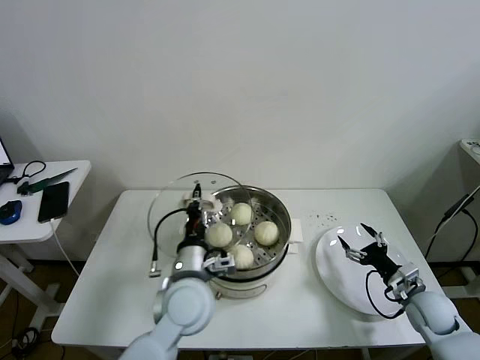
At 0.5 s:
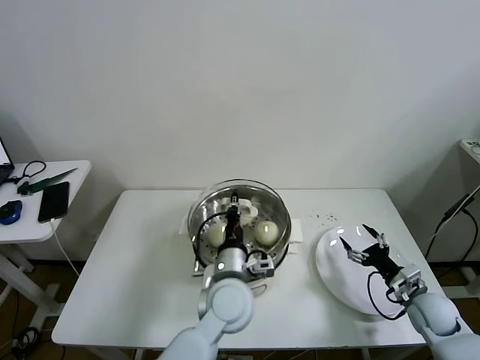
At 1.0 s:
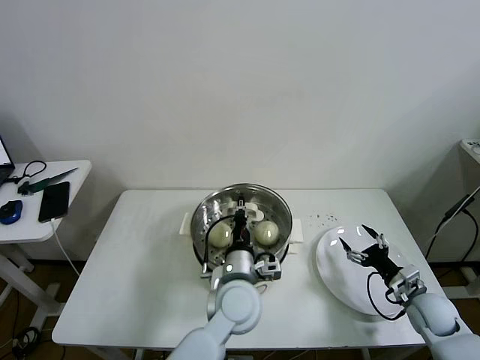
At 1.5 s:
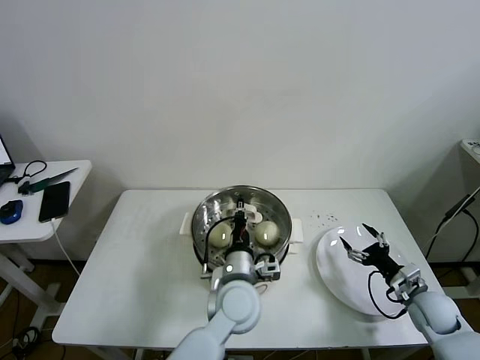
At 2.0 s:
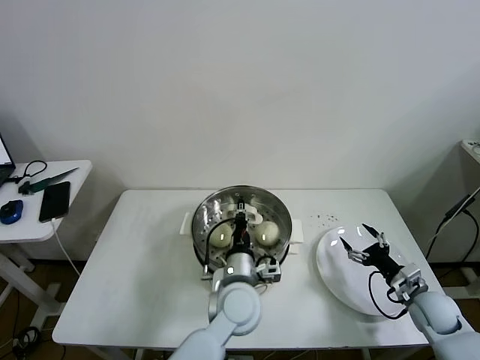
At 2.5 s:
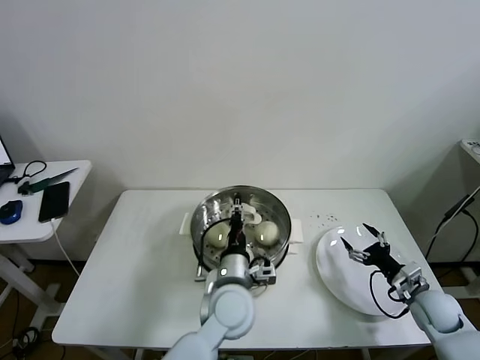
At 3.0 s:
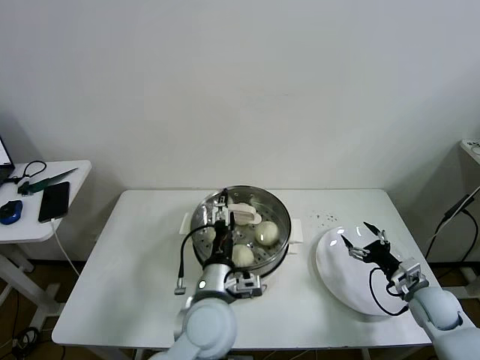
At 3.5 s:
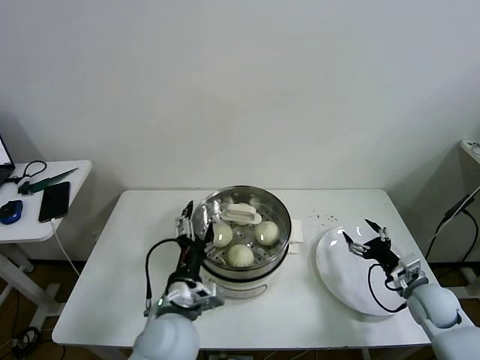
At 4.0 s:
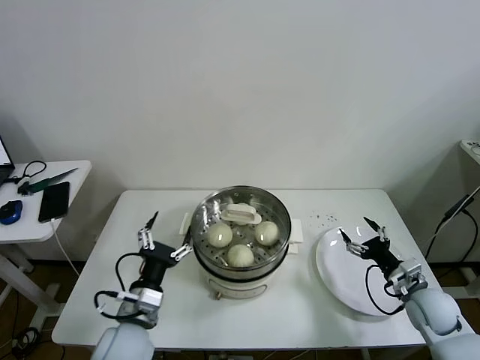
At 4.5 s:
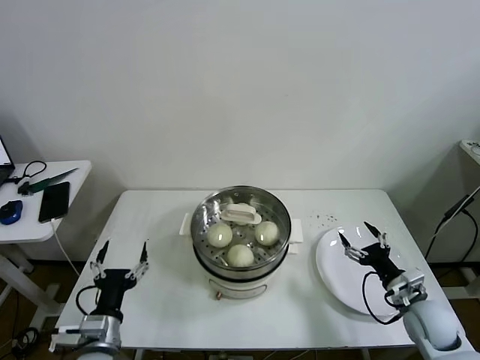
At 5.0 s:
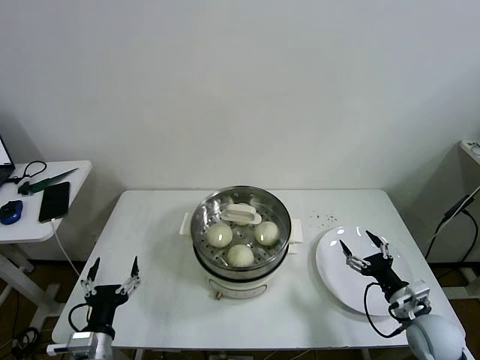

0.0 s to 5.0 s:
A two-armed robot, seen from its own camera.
Task of the whole recording: take steamed baozi put them in steamer then cover it.
Step, 0.0 to 2.5 s: Place the pot lid on the steamer with left gripper.
0.0 to 2.5 s: The left gripper shifts approximately 10 cm to the right, and opens its fingers.
2.5 to 5.0 s: The left gripper shifts roughly 30 cm to the left and backward, and opens. The right gripper goes some 5 cm backward.

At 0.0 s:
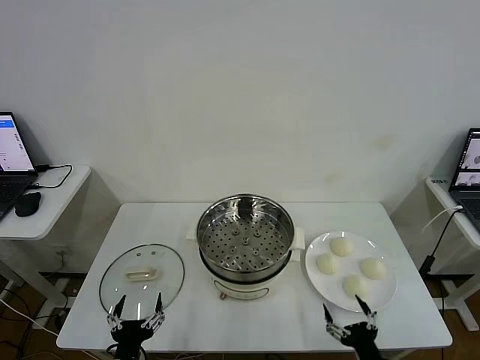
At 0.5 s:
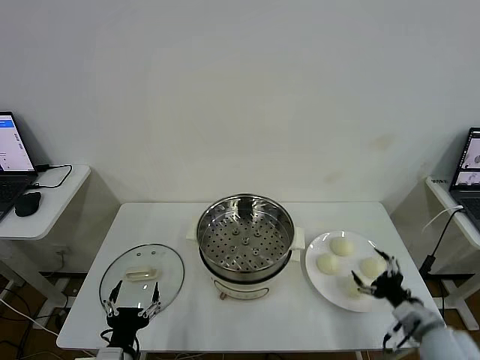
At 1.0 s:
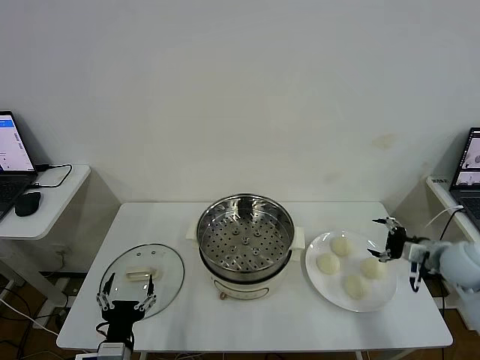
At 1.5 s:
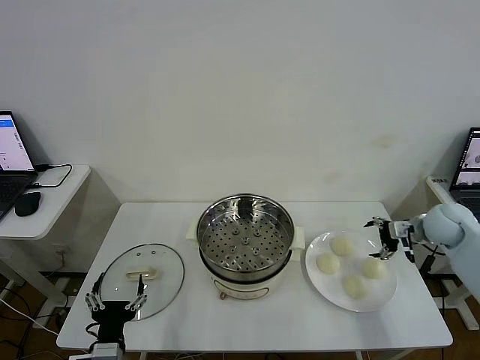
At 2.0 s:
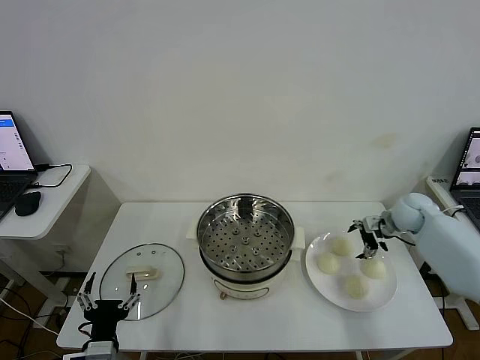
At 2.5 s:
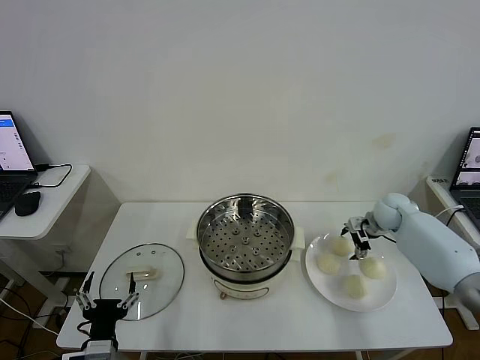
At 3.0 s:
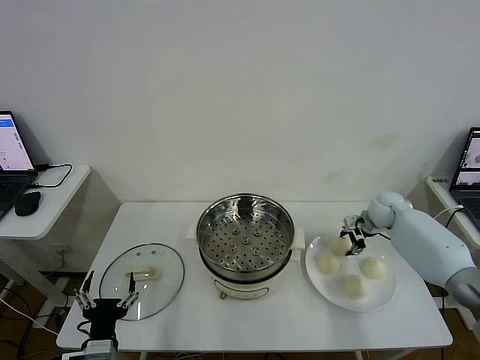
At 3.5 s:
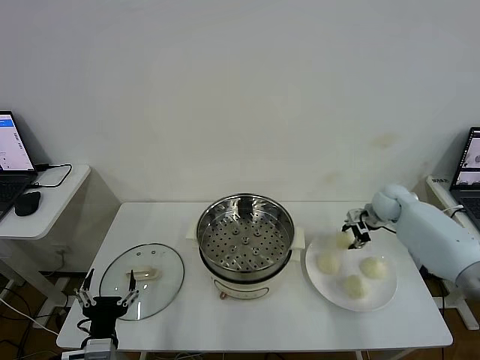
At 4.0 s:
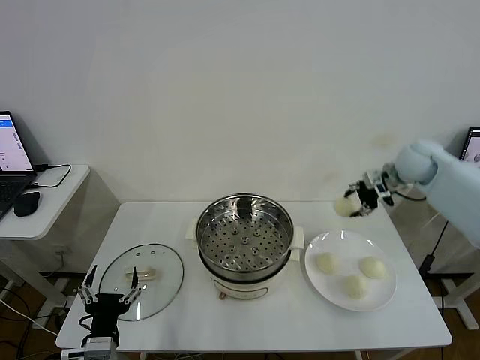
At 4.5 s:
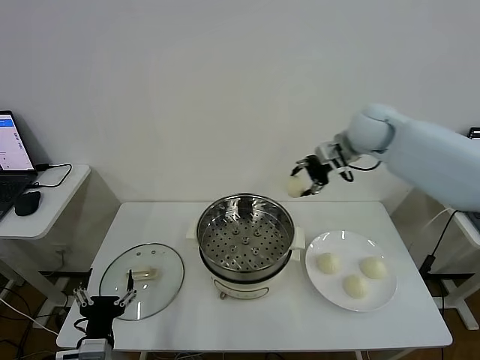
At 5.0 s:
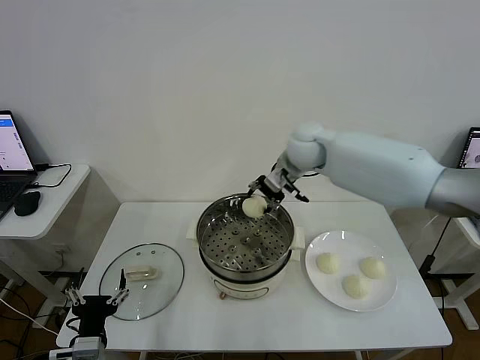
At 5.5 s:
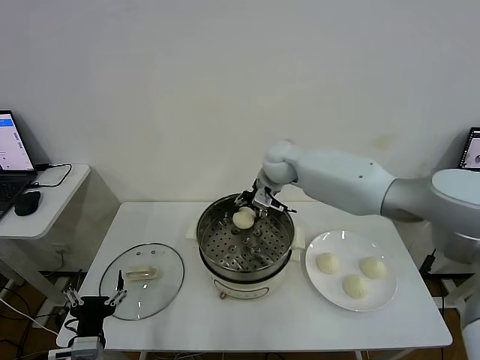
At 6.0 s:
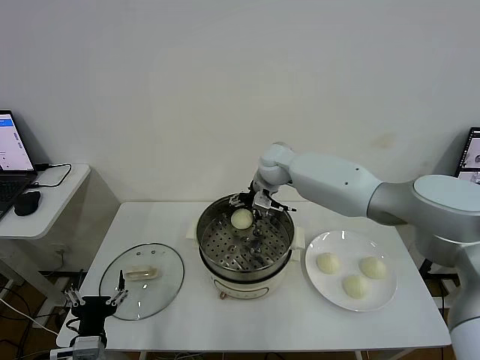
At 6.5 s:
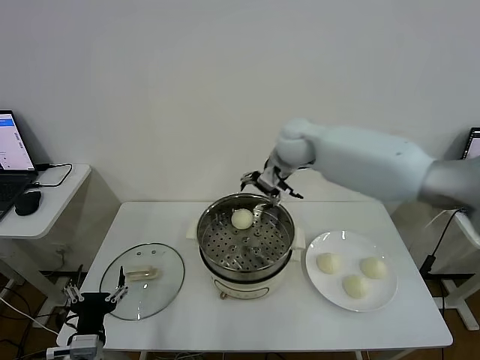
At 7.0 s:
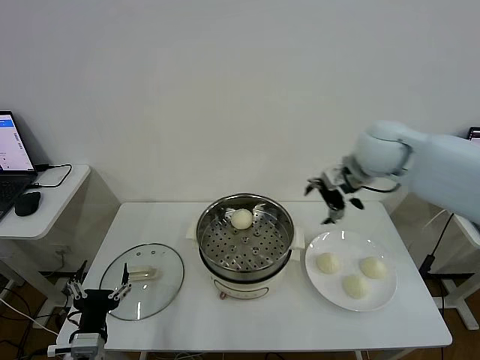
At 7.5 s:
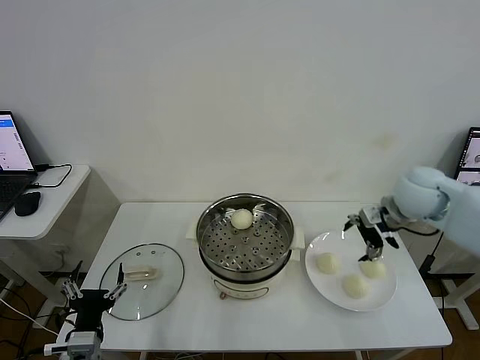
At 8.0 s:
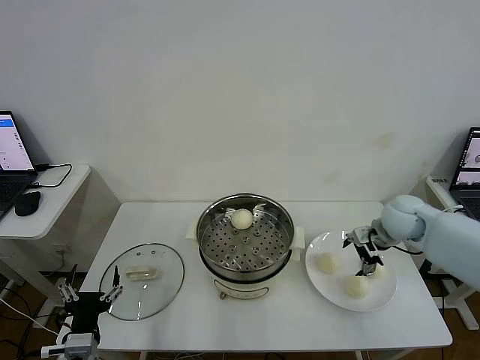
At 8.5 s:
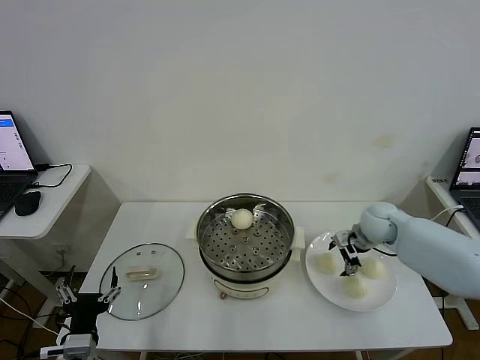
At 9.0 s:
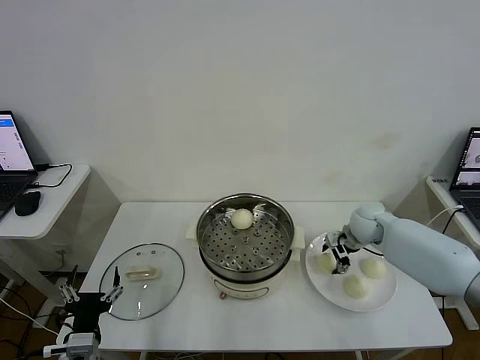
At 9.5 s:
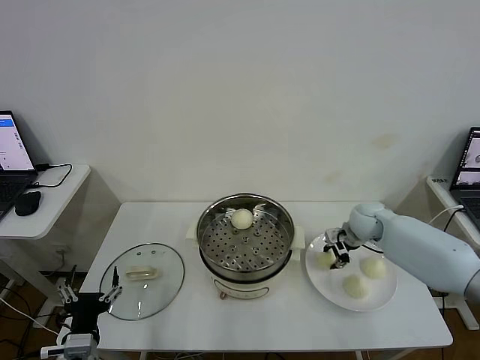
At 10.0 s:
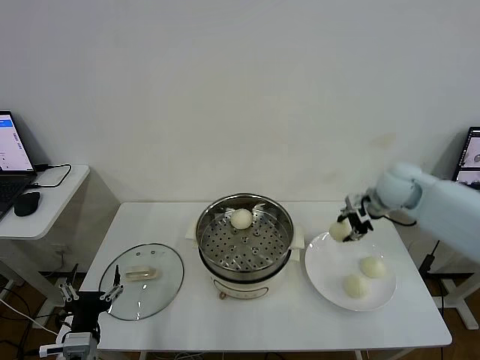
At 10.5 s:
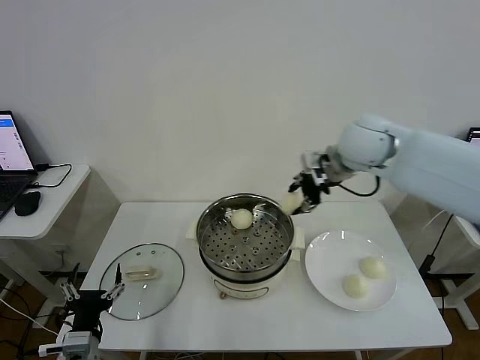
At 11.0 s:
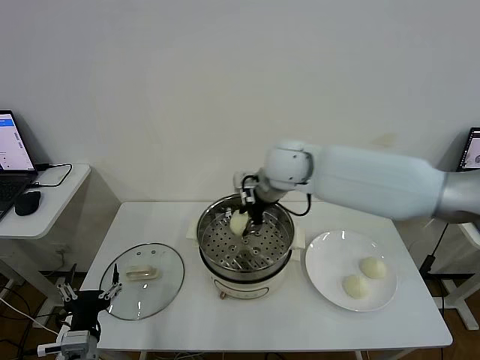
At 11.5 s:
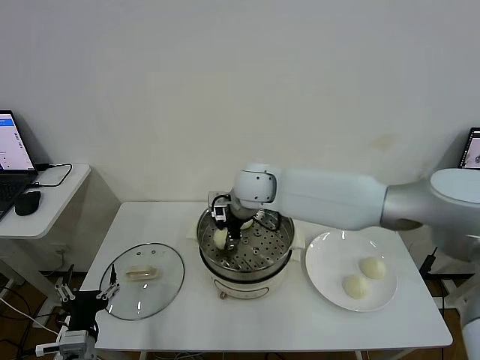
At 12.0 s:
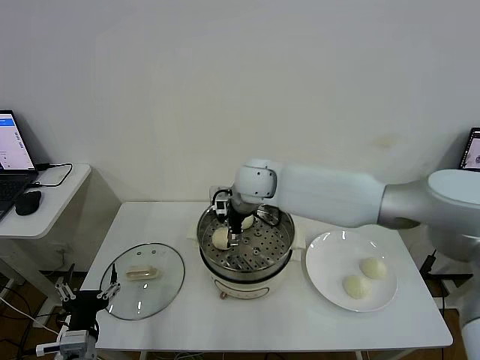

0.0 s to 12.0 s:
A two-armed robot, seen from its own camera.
Task of the whole recording: take steamed baozi put them in steamer then cover it.
Step, 0.0 to 2.5 s: Grasp the baozi in the plate with right gripper.
Step, 3.0 to 6.0 s: Place the baozi on the steamer with right gripper.
Step, 6.5 to 9.0 s: Grasp the baozi in the plate with right gripper.
Step, 10.0 to 11.5 s: Place the baozi on the steamer with right gripper.
2.0 to 4.0 s: The right gripper shifts approximately 20 cm upward, and closes.
4.0 to 6.0 s: The right gripper travels to the left by about 30 cm, and opens its fingers.
6.0 to 8.0 s: The right gripper heads to the right and backward, covering roughly 30 cm.
8.0 to 10.0 s: The right gripper shifts about 10 cm upward, and closes.
10.0 to 12.0 s: The right gripper shifts about 30 cm to the left, and opens its fingers.

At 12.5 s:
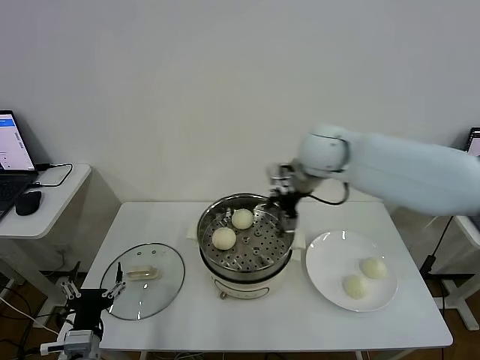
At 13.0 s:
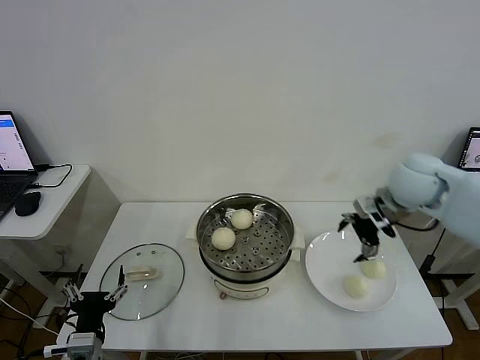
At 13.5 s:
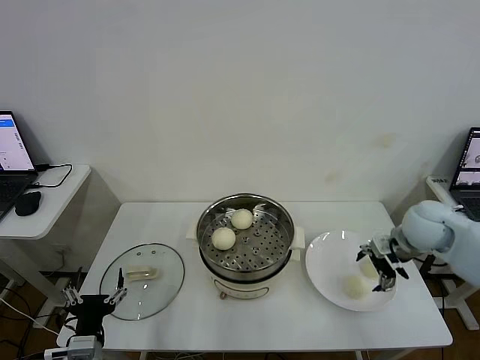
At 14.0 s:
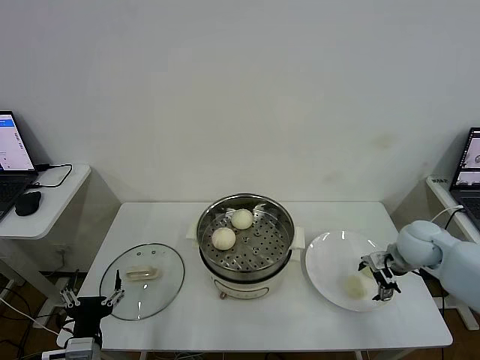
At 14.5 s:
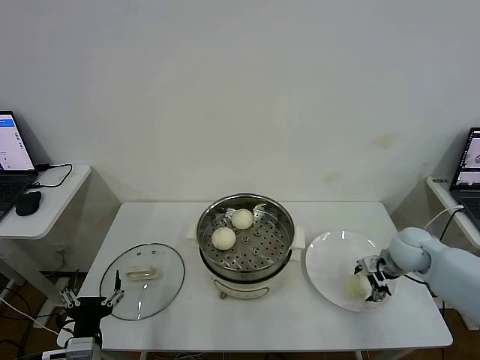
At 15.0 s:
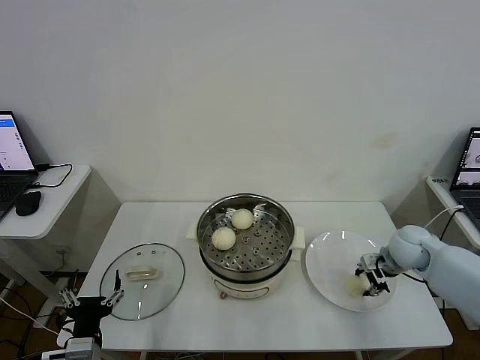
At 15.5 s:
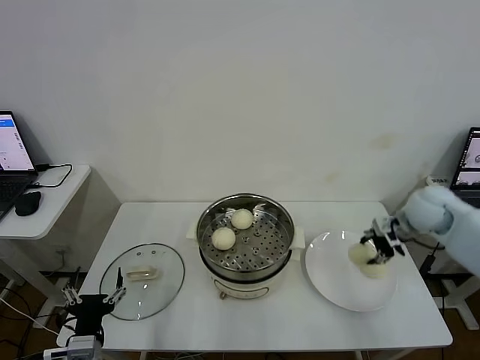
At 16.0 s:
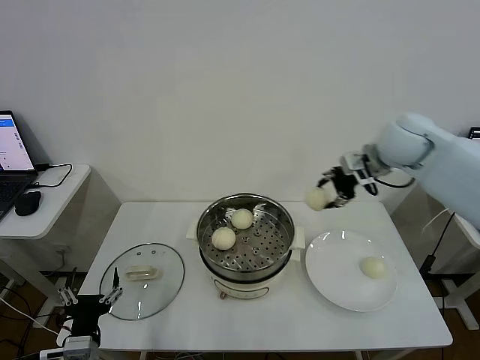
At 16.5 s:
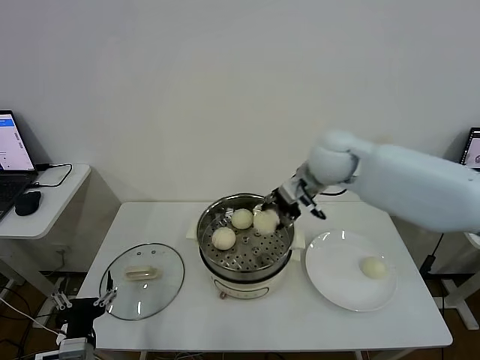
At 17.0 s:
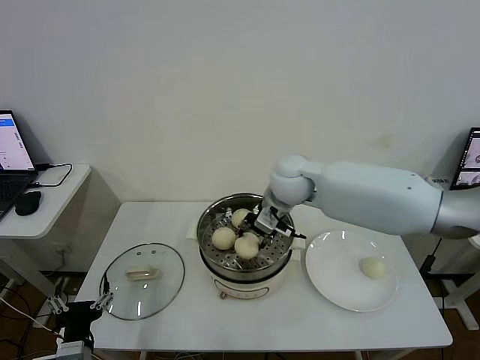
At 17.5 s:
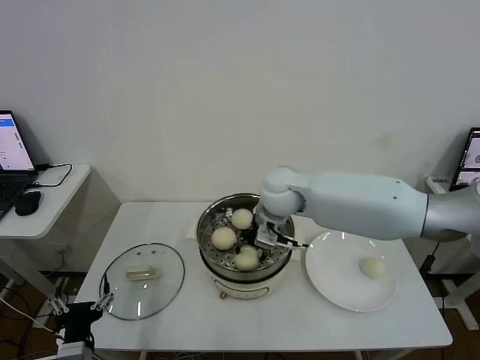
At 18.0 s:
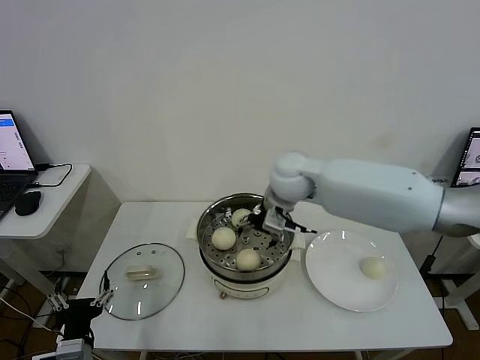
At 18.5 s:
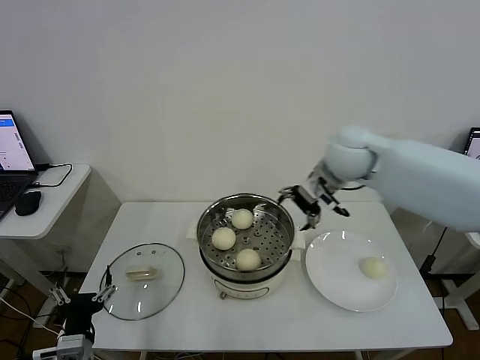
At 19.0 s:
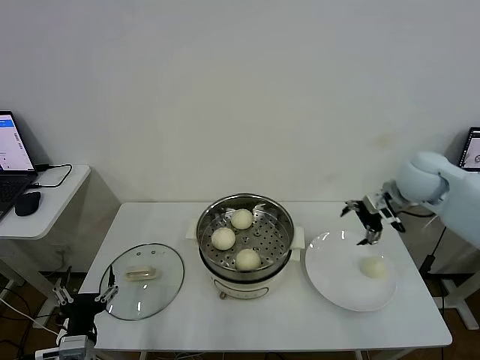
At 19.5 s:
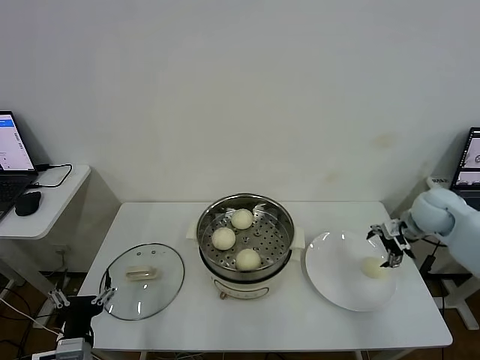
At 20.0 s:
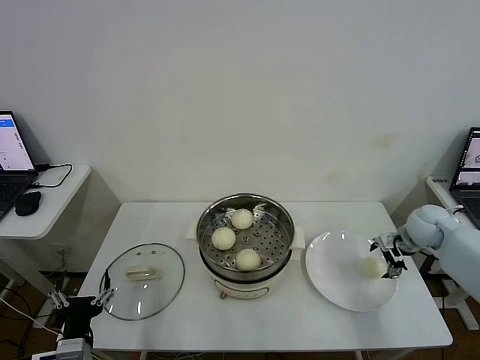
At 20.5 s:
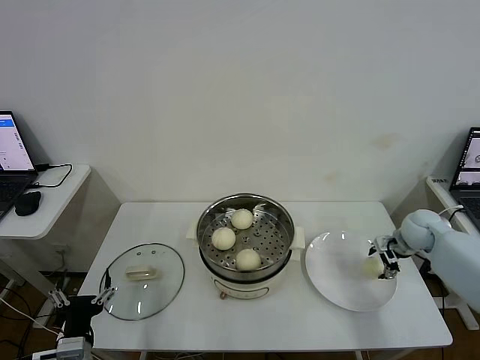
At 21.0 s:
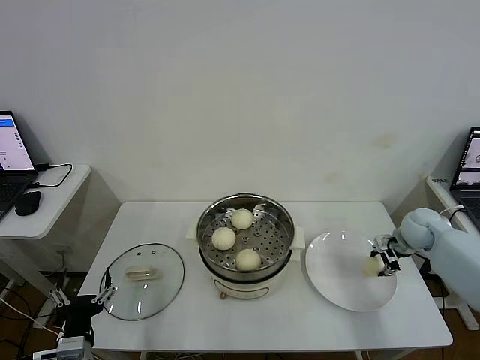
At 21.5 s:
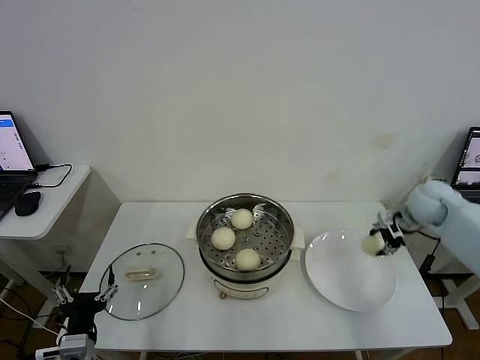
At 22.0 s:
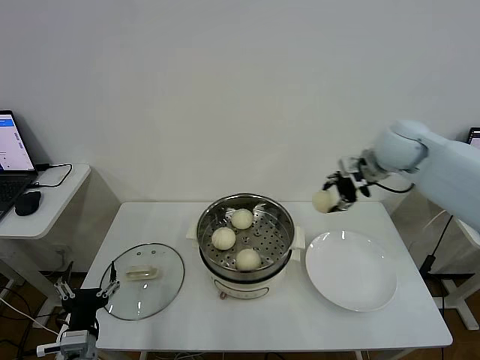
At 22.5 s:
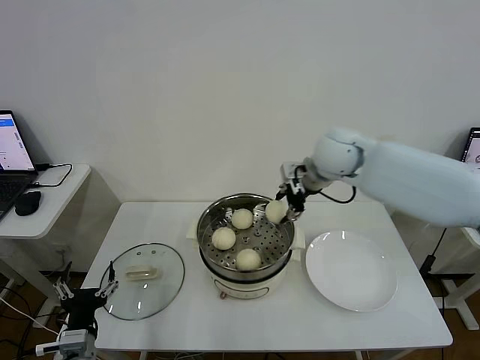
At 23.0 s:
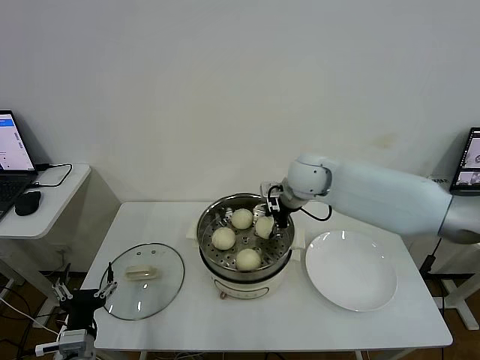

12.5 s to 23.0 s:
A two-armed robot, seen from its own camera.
Task of the whole recording: take steamed baozi put them in steamer then cover it.
Step, 12.5 to 14.5 s: Grasp the baozi in the plate with right gripper.
Step, 15.5 to 18.0 s: Place the baozi on the steamer with right gripper.
Step, 18.5 to 20.5 s: Grasp the baozi in the plate with right gripper.
12.5 to 14.5 s: The right gripper goes some 30 cm downward and to the right.
14.5 to 16.5 s: The right gripper is displaced to the left and upward by approximately 30 cm, and closes up.
16.5 to 19.0 s: The right gripper is displaced to the right by about 20 cm, and opens up.
19.0 to 21.0 s: The right gripper moves downward and to the right, some 20 cm, and closes.
21.0 to 23.0 s: The right gripper goes about 35 cm to the left and upward.
